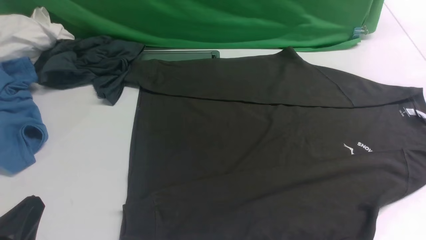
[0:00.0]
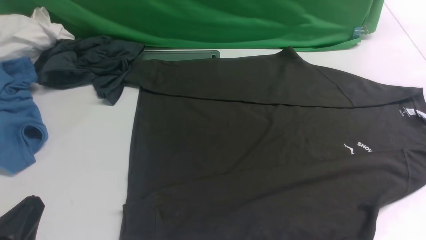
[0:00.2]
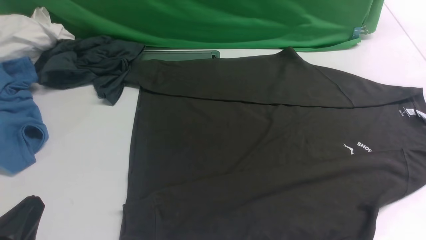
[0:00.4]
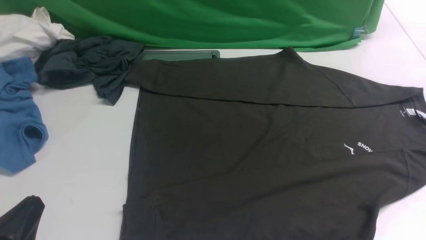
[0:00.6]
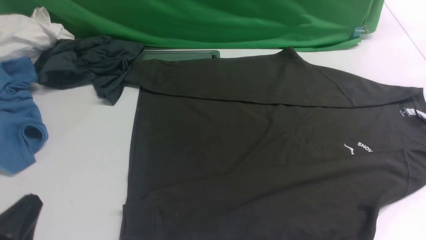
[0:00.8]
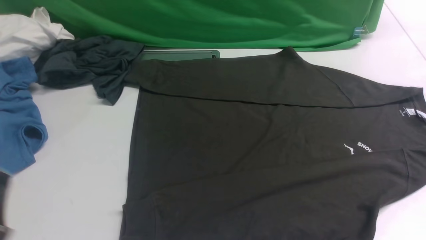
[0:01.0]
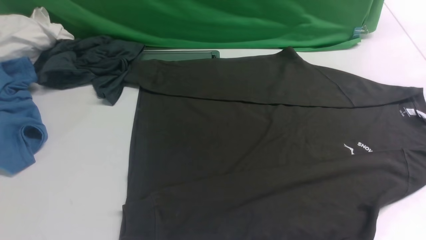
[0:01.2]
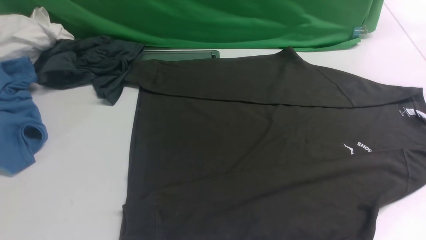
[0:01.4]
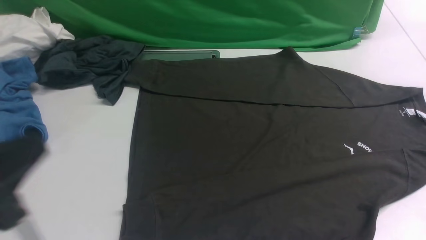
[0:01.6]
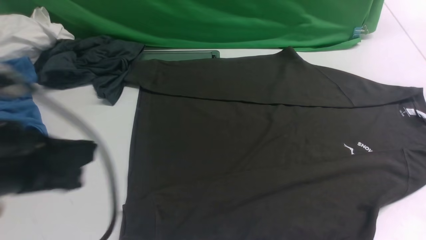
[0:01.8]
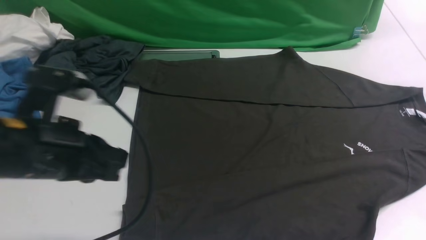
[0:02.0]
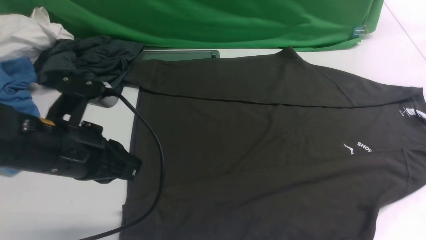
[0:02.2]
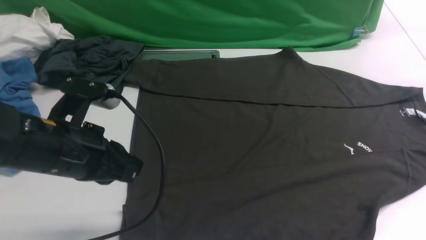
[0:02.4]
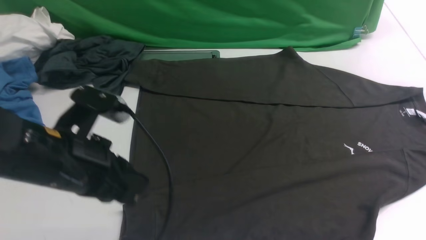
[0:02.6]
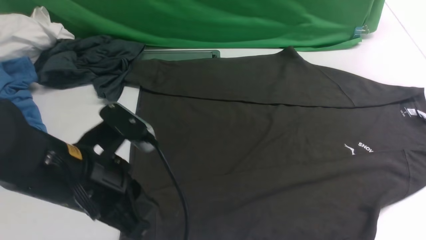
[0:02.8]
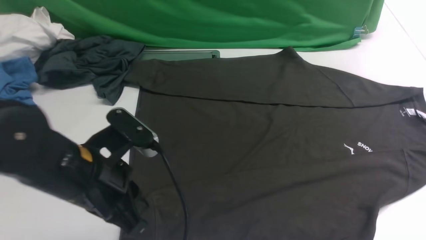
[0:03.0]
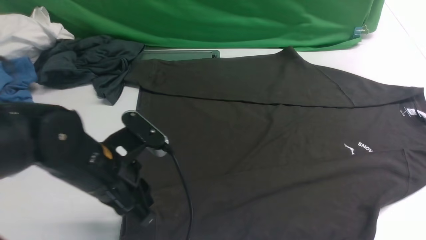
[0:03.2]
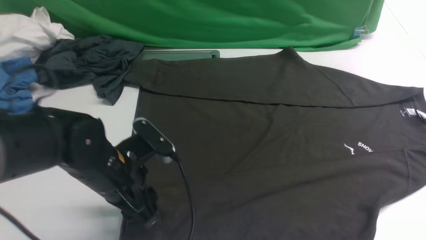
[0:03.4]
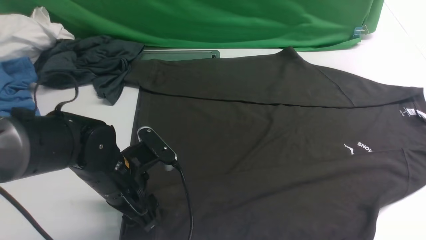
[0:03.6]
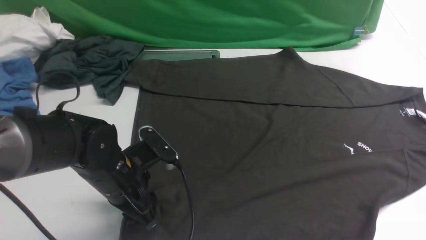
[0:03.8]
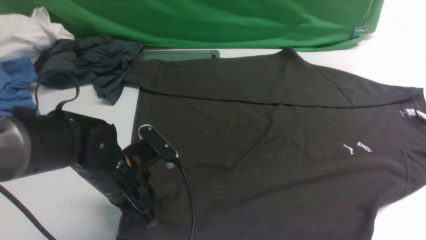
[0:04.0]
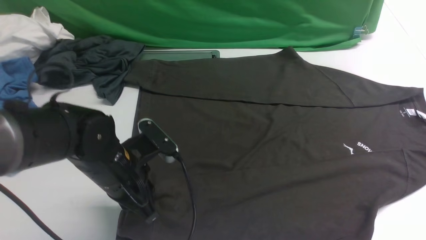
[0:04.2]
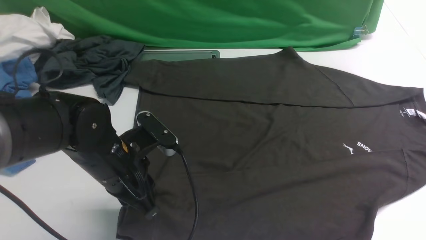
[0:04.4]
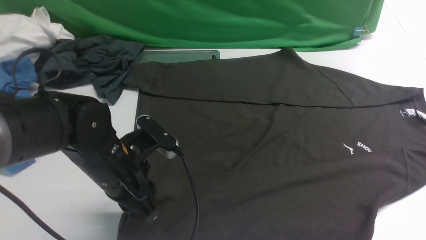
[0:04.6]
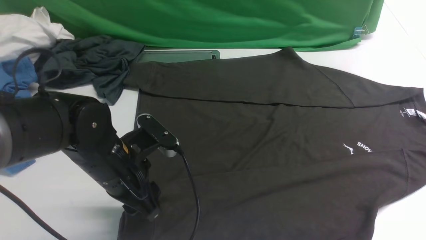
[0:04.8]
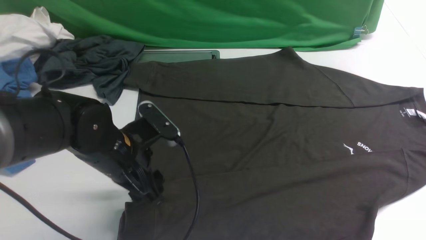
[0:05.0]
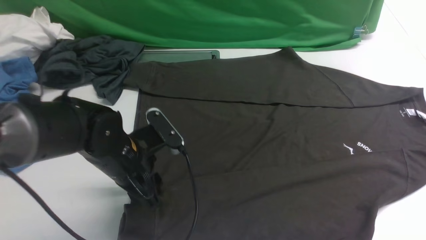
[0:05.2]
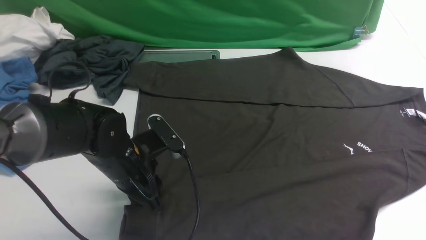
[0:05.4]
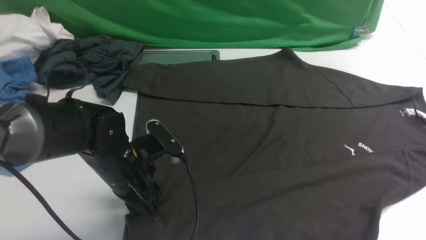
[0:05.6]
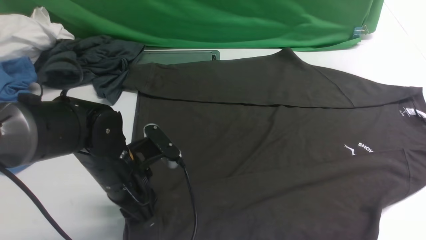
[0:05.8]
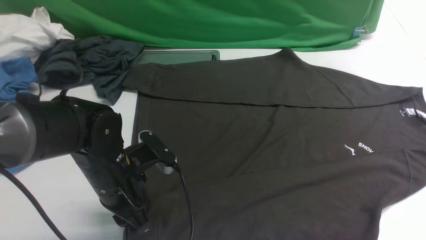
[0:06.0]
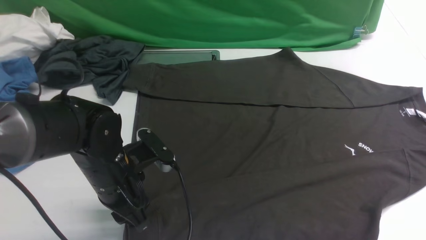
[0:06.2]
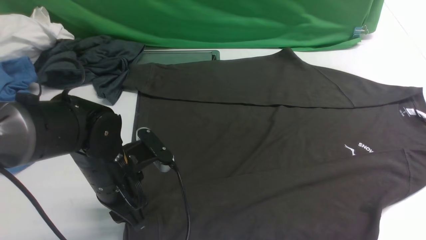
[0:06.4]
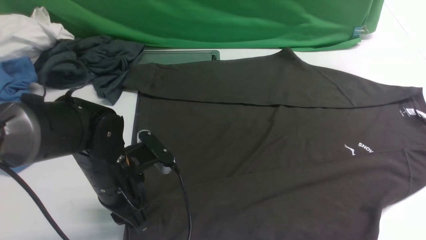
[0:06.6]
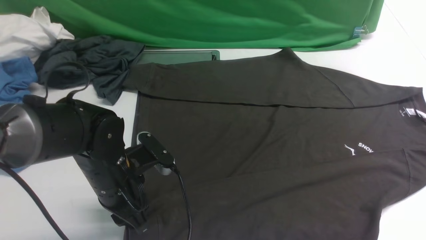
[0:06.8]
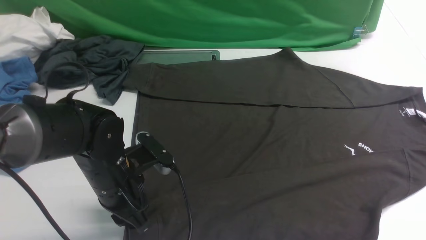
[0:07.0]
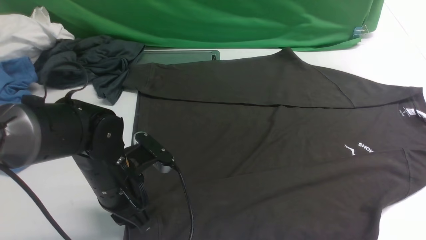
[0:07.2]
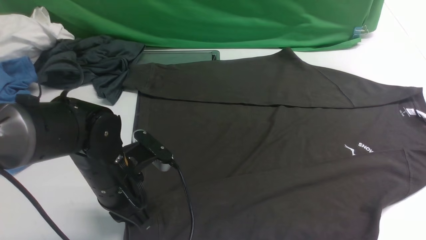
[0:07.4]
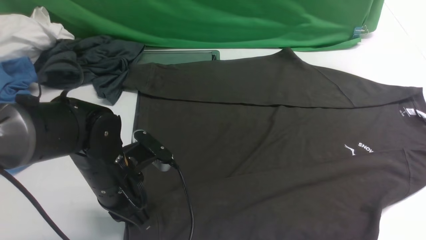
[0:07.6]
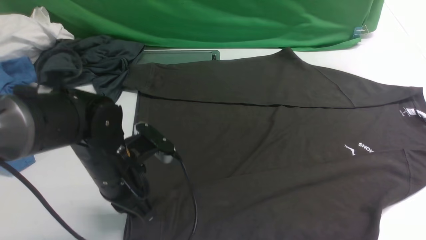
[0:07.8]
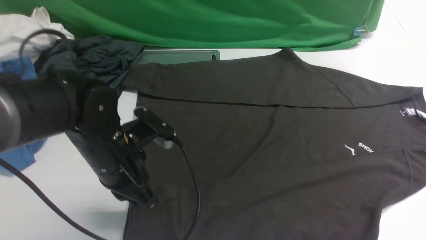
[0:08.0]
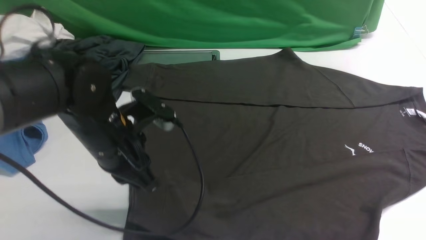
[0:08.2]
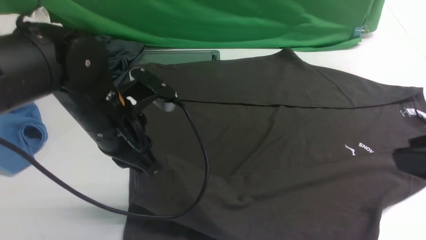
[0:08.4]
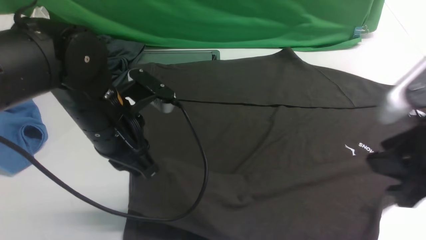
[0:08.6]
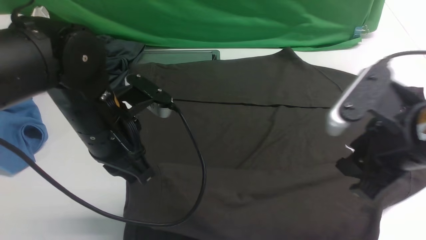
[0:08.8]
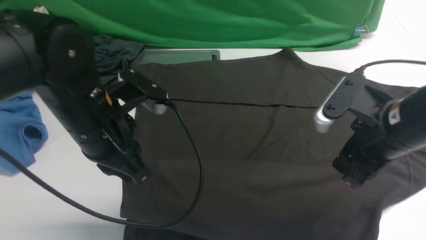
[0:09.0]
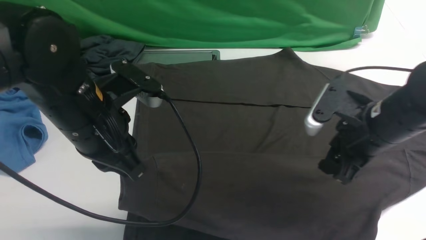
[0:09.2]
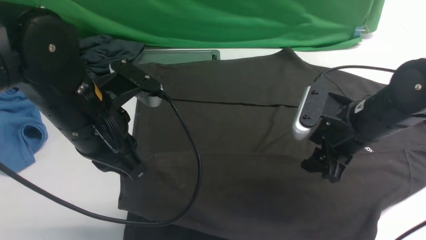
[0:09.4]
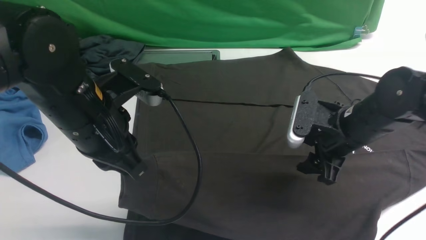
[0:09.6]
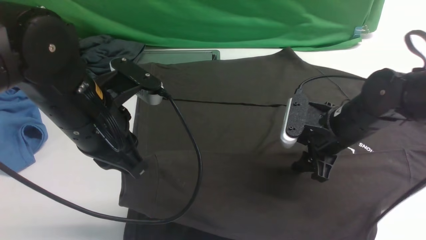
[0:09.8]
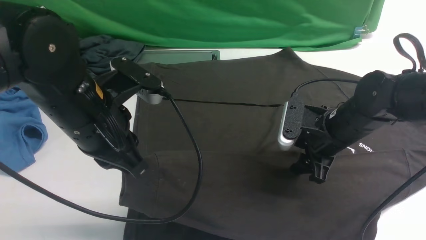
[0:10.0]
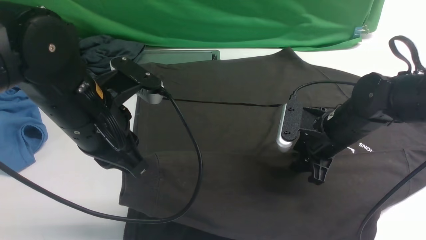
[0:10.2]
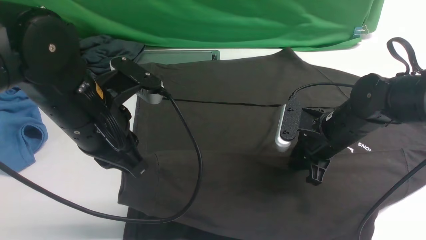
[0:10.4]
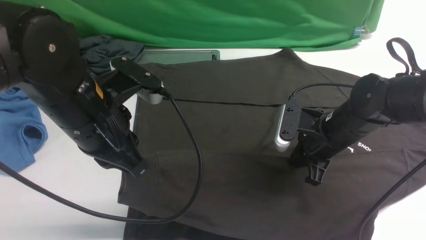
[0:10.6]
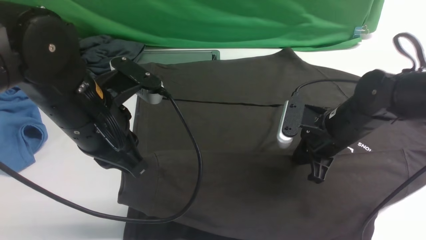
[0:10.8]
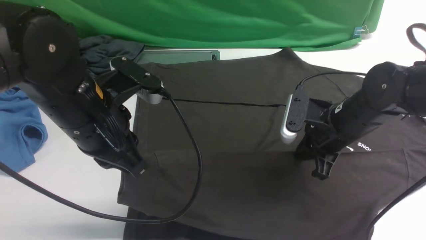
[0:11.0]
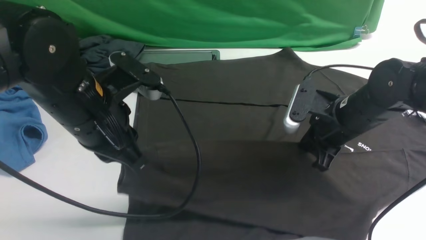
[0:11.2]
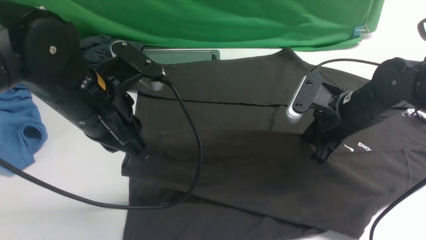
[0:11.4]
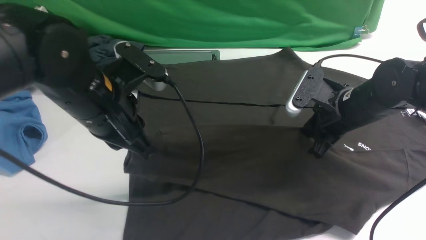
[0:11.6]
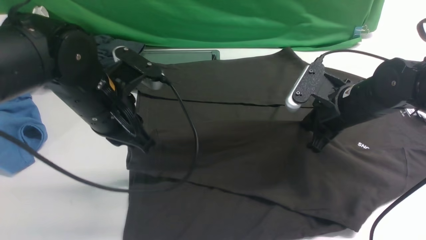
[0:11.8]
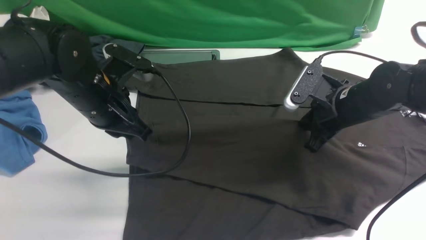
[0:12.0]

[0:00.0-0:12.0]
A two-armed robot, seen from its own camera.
Step, 0:00.0 to 0:08.0: use the left arm to clamp the cuff closest to it.
0:00.0 to 0:01.6: The left gripper moves upward, roughly 15 cm.
0:01.6 to 0:03.0: The right gripper goes some 10 cm upward. Meanwhile the left gripper travels forward, downward and to the right by approximately 15 cm.
0:03.0 to 0:04.4: The left gripper changes place by approximately 5 cm, and opens, then closes once more. The right gripper heads upward, covering approximately 10 cm.
0:04.4 to 0:06.0: The left gripper opens its fingers.
0:06.0 to 0:07.6: The left gripper closes.
0:07.6 to 0:09.0: The left gripper is displaced upward by about 10 cm. Meanwhile the right gripper goes some 25 cm forward and downward.
0:09.0 to 0:10.4: The right gripper heads downward and forward, covering about 15 cm.
0:10.4 to 0:12.0: The left gripper heads forward, covering roughly 5 cm.

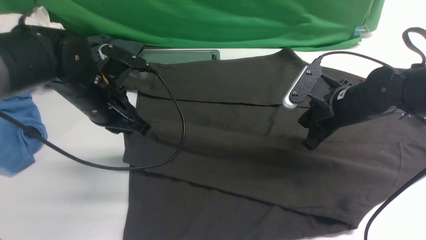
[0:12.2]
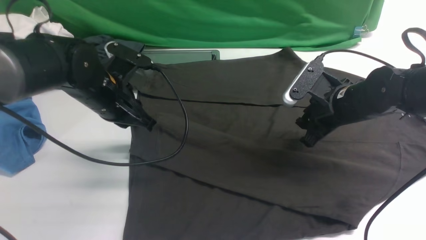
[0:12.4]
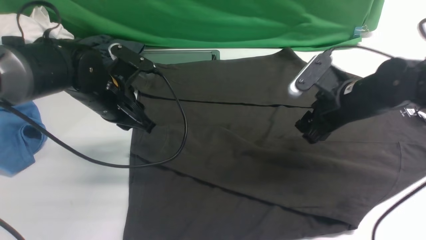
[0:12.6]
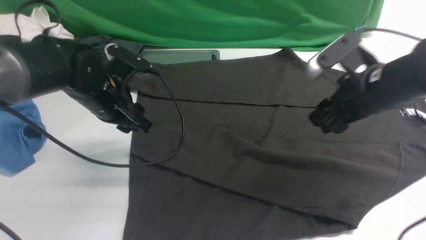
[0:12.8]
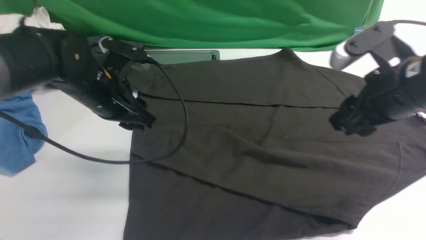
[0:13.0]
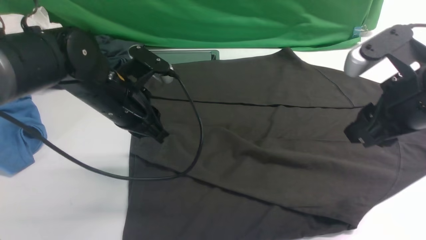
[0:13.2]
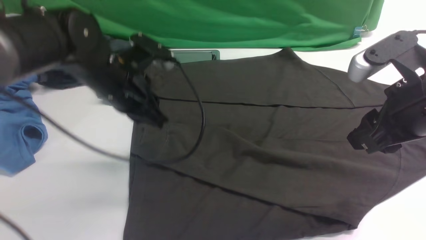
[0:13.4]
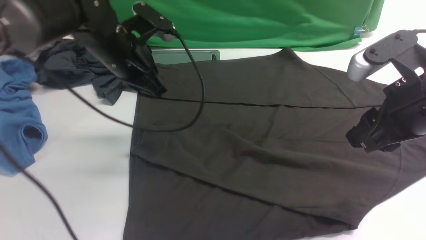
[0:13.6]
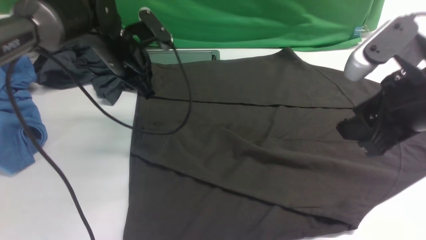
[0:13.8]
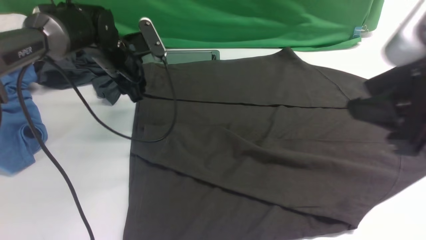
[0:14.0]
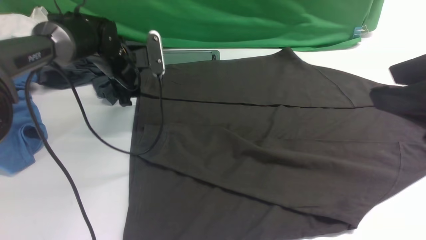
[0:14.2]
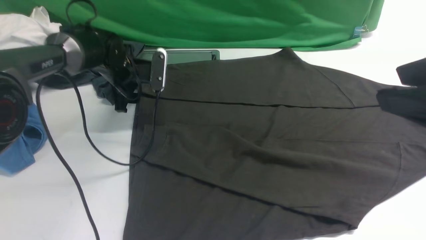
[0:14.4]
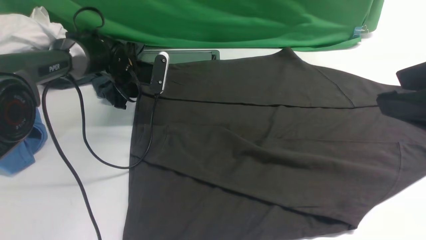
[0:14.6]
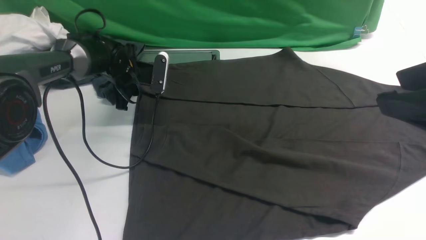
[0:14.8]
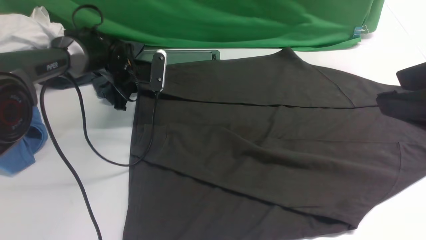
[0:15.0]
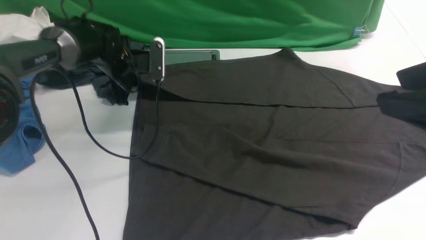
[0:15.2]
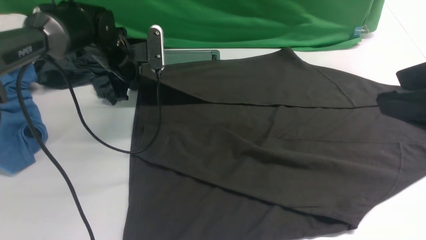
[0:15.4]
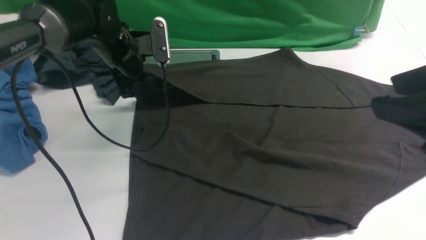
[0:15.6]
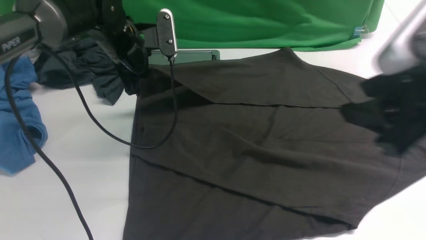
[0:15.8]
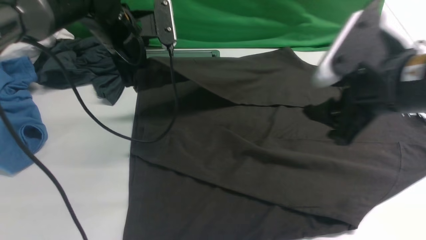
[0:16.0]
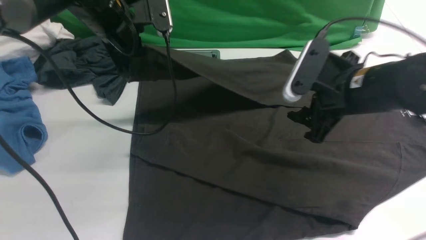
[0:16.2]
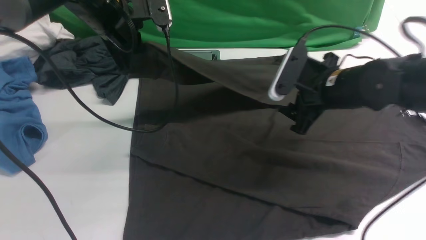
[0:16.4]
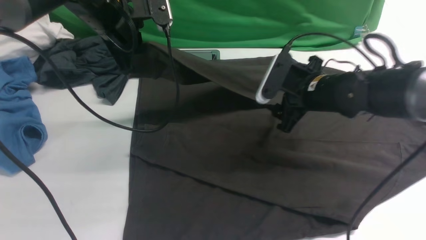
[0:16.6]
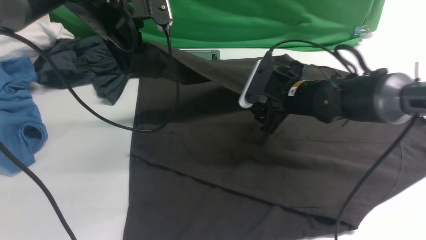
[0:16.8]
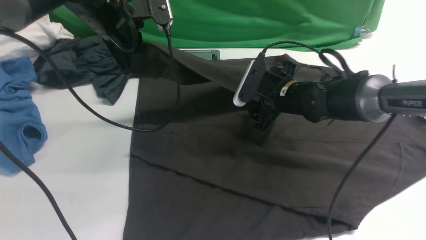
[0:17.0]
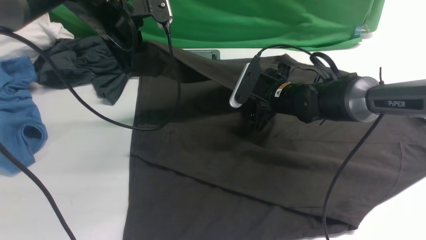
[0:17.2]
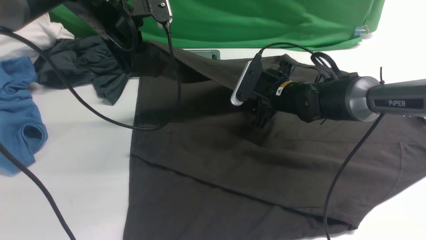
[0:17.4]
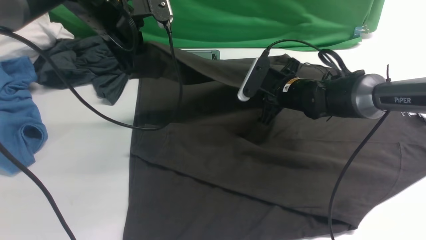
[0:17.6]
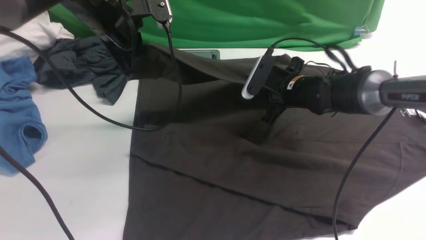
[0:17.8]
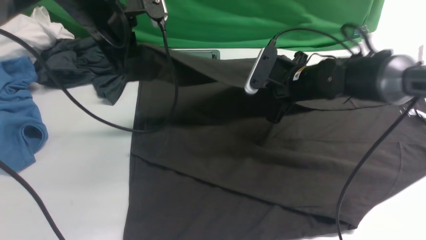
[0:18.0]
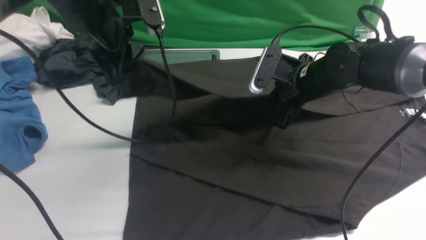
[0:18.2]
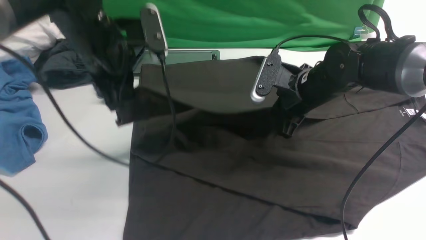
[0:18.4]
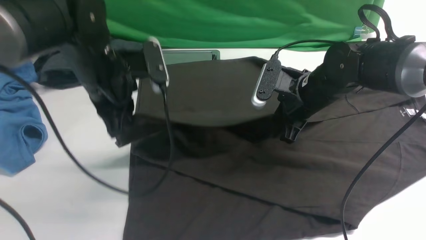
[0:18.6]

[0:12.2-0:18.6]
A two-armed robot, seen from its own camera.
Step, 0:13.2 to 0:15.2: use the left arm to clamp the cuff farthest from it.
0:12.2 to 0:13.8: The right gripper heads upward and backward, covering some 20 cm, and opens. Meanwhile the left gripper shifts approximately 10 cm forward, and opens.
0:13.8 to 0:15.4: The right gripper is displaced backward by about 5 cm. The left gripper reaches some 10 cm downward, then returns, and closes.
0:15.4 to 0:17.0: The right gripper travels forward, downward and to the left by about 35 cm, and opens its fingers, while the left gripper travels upward and backward by roughly 10 cm.
0:17.0 to 0:18.6: The left gripper shifts roughly 10 cm backward and downward, while the right gripper shifts by approximately 5 cm, and closes.
